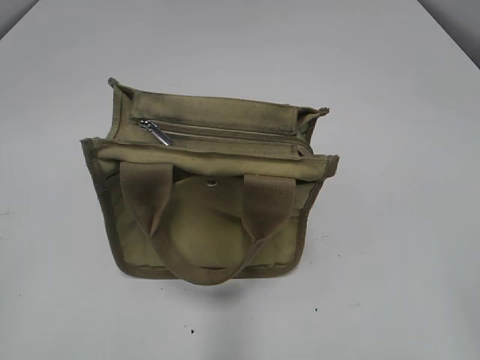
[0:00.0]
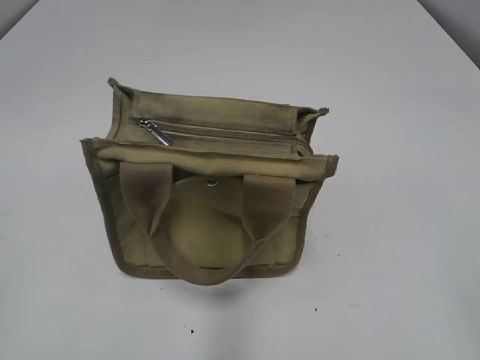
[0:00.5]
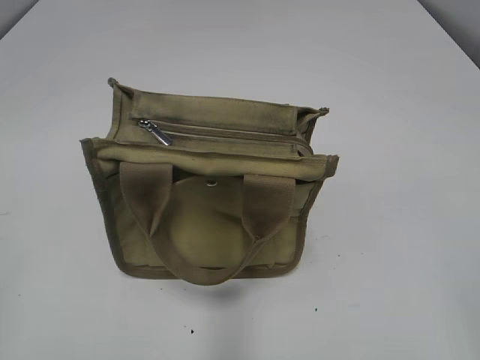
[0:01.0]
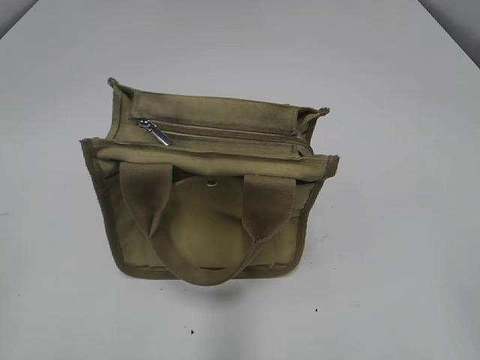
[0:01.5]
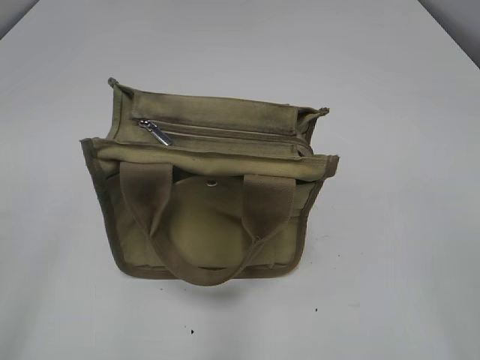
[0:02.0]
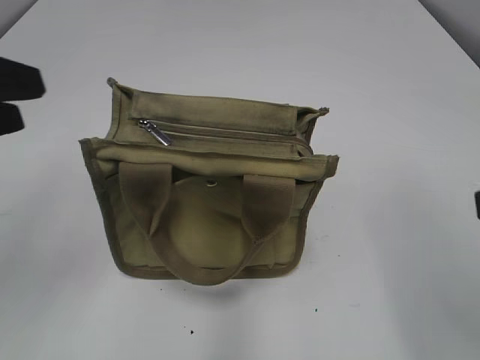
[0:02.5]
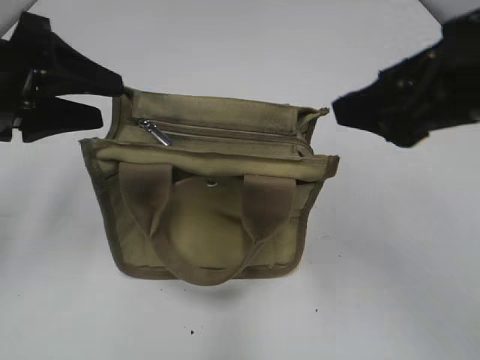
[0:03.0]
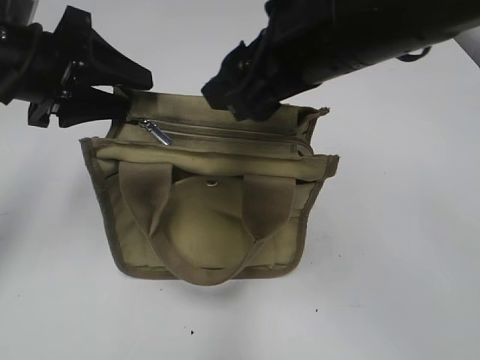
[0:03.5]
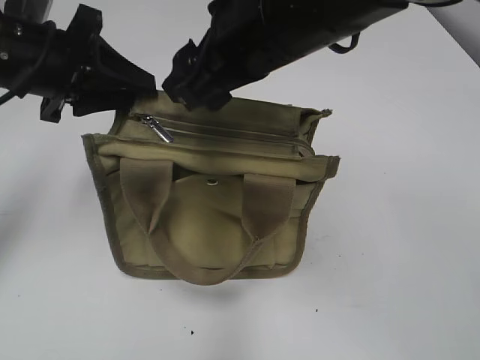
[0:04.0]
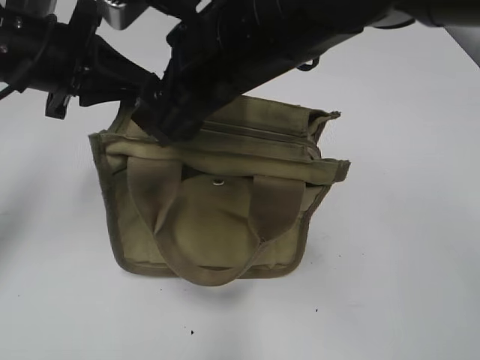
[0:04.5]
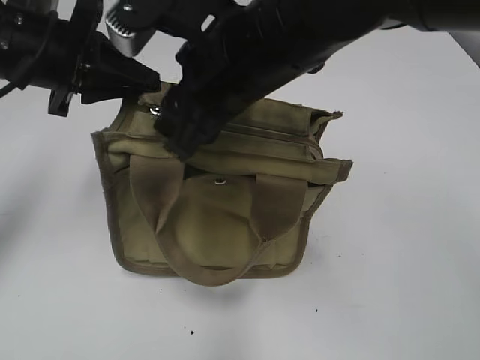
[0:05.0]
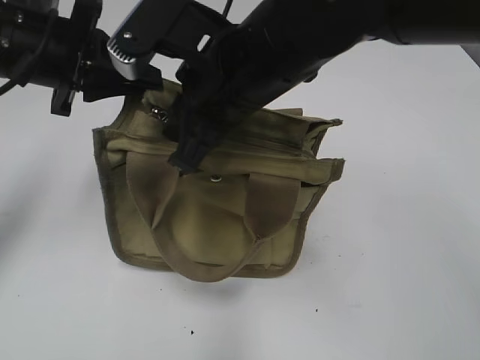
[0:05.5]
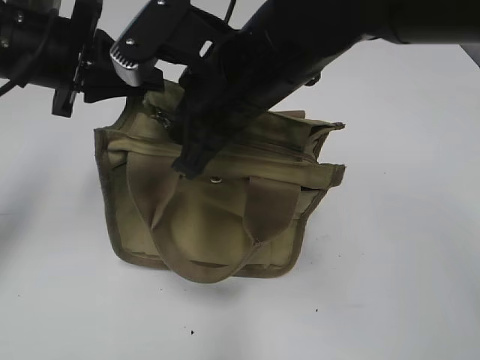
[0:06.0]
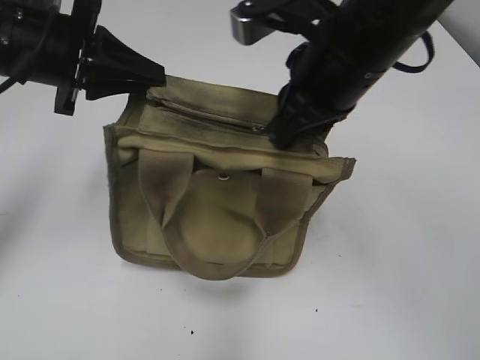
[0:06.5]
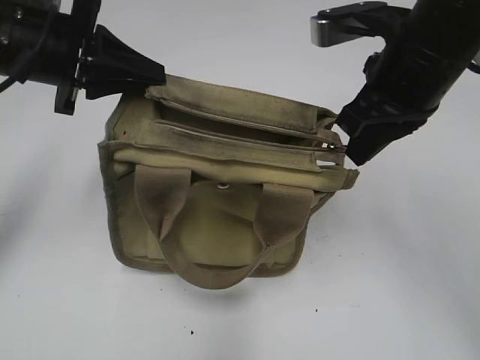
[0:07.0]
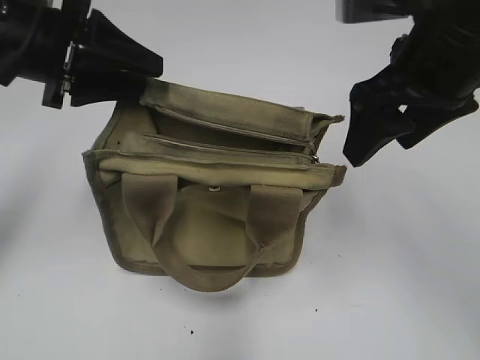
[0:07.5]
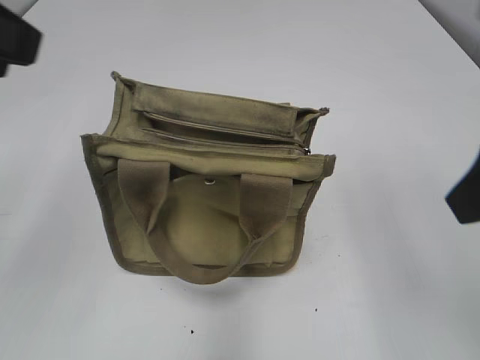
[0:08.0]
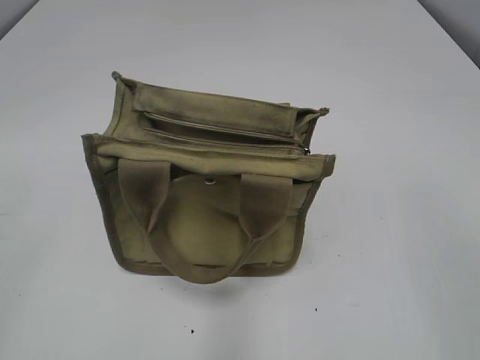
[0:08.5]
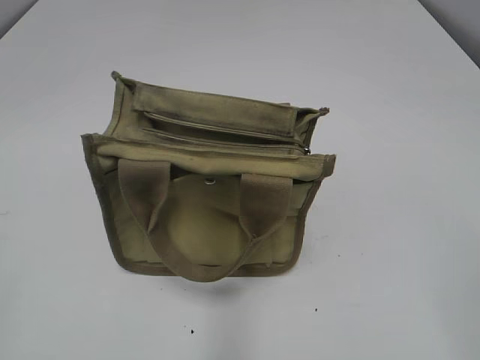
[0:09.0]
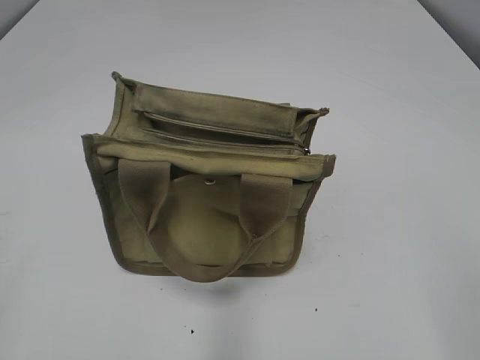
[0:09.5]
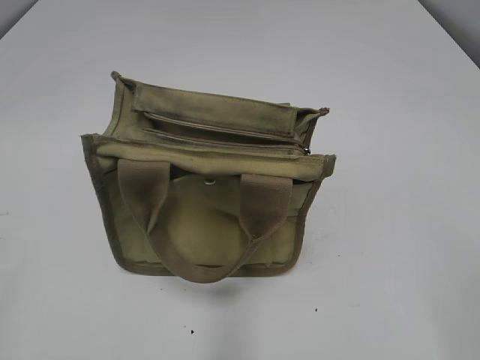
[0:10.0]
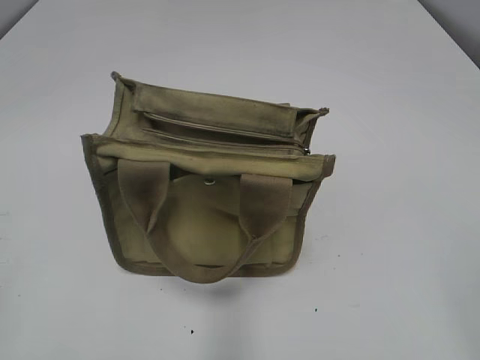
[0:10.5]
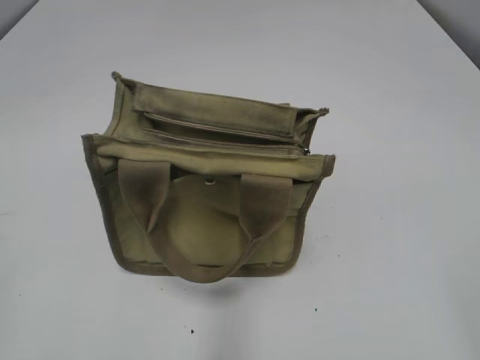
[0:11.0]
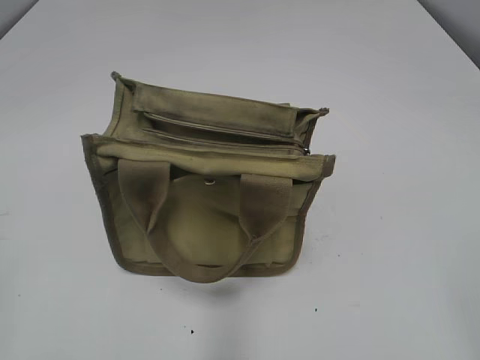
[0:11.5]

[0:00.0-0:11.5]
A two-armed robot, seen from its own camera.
Step, 0:00.0 to 0:07.0: Zip up the bag with your right hand.
0:02.0 to 0:04.0: The left gripper travels forward by approximately 30 cm, and closes. Meanwhile the right gripper is displaced forward and to the left by about 35 cm.
0:04.0 to 0:06.0: The left gripper closes its fingers. The right gripper moves about 5 cm, and closes up.
0:06.0 to 0:07.5: The right gripper goes about 15 cm to the right, and opens.
0:07.5 to 0:09.5: The right gripper travels backward and to the right by some 30 cm. The left gripper heads backward and to the left, covering approximately 35 cm, and opens its fingers.

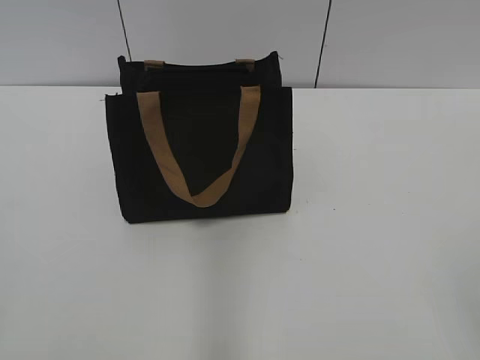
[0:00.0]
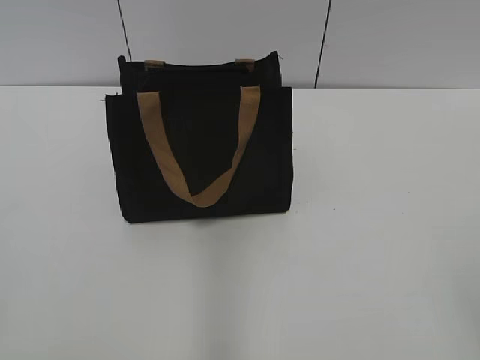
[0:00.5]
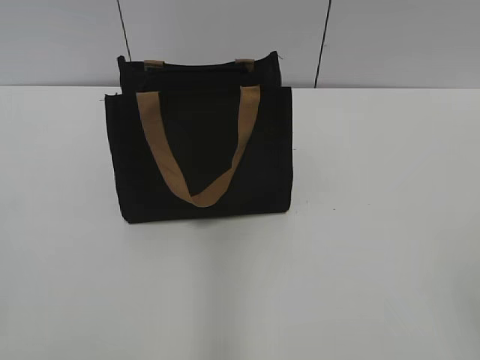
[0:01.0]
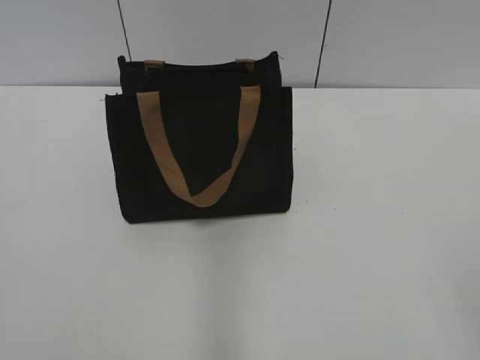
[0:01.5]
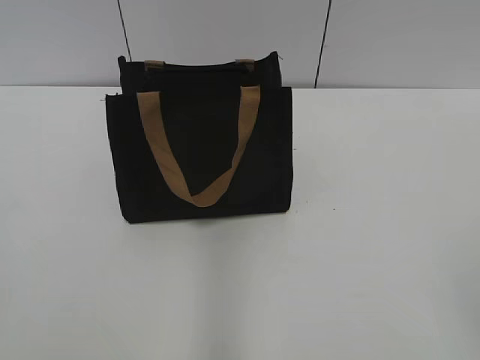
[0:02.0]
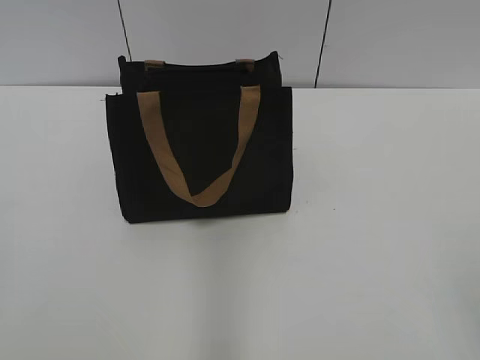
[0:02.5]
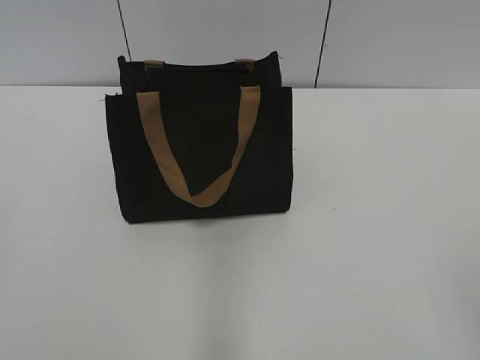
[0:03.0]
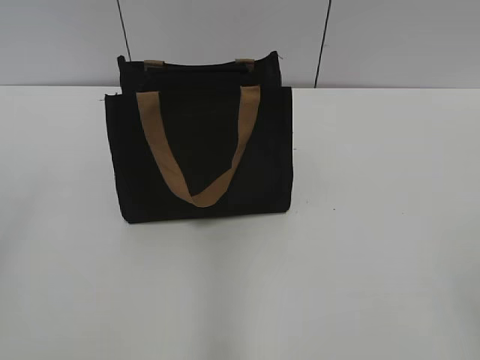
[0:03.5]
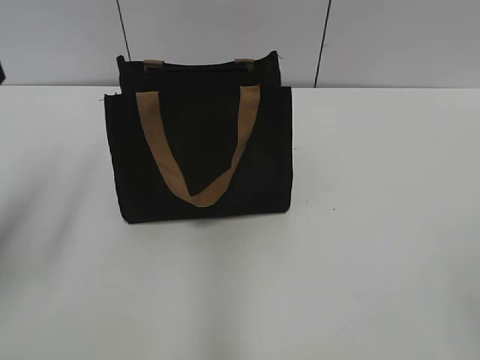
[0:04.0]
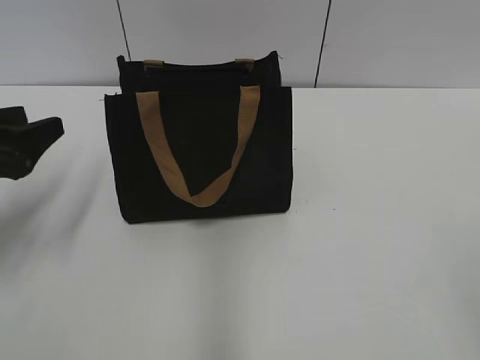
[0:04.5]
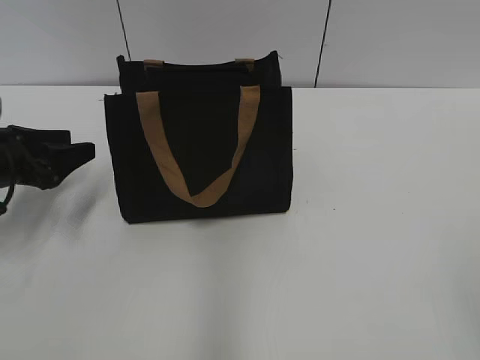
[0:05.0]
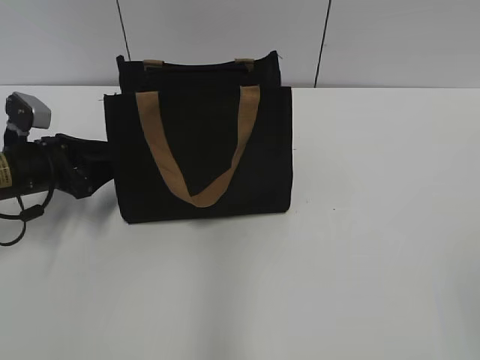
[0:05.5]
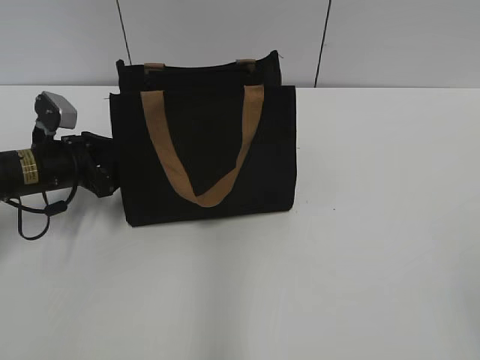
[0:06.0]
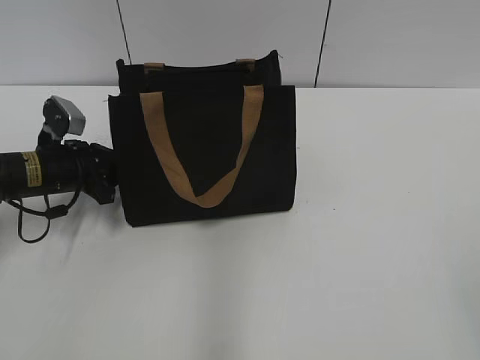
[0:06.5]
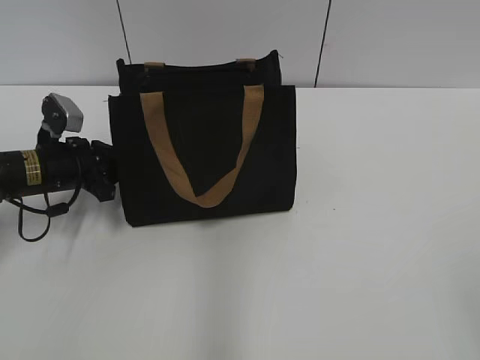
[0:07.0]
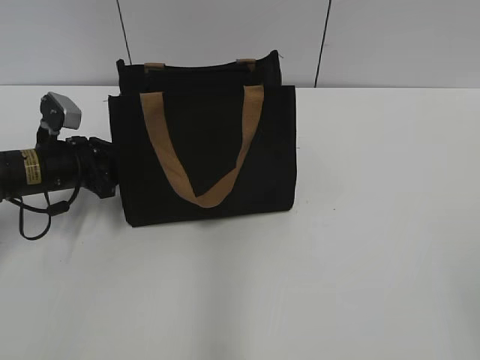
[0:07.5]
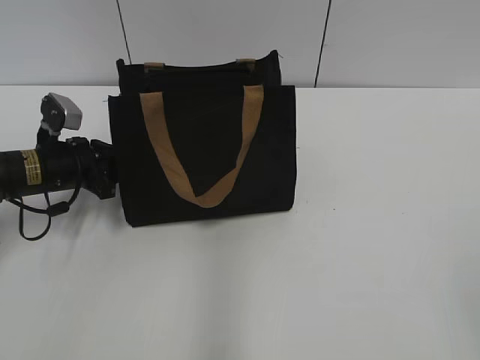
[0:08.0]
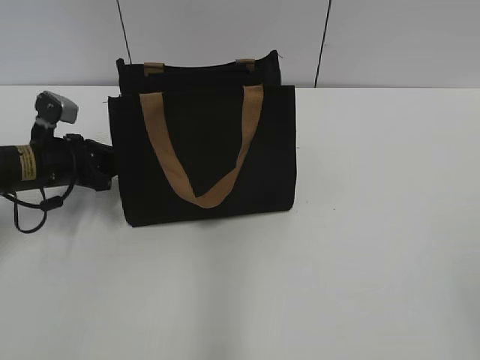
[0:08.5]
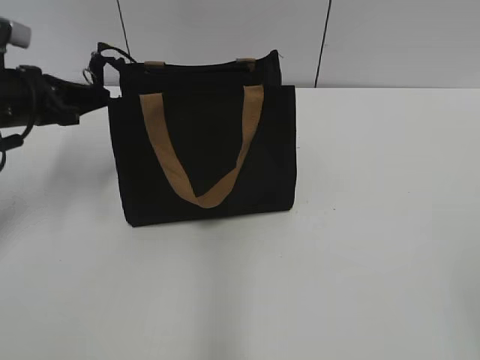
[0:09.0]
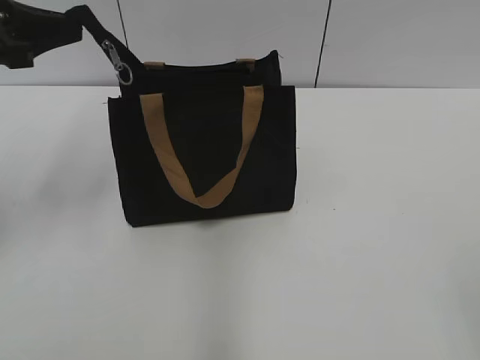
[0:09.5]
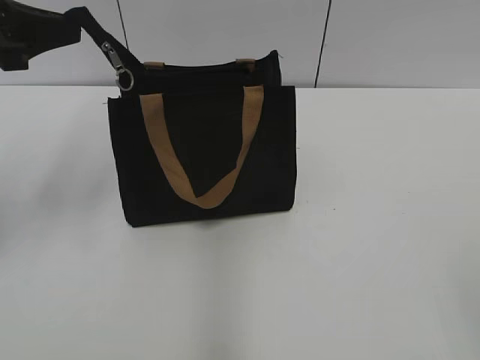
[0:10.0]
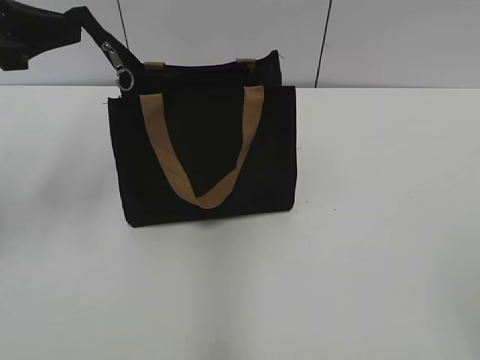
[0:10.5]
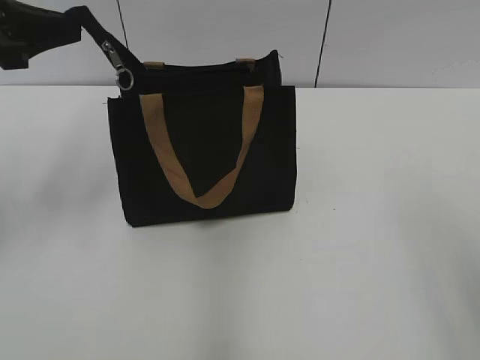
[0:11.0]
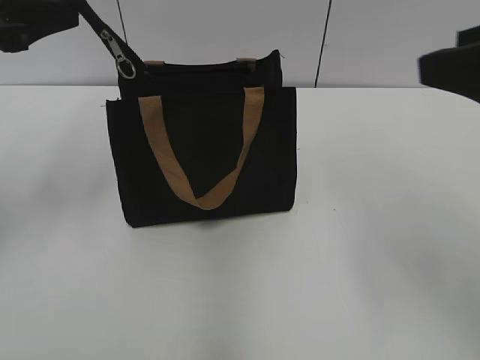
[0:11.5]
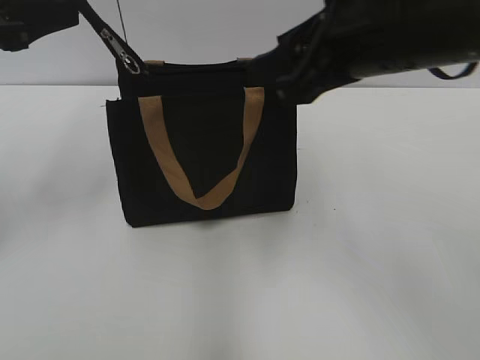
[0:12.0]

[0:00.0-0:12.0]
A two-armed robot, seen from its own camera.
0:02.0 to 0:04.0: The left gripper moves forward, roughly 20 cm, and opens.
0:04.0 to 0:06.0: The left gripper is displaced downward and forward by some 25 cm.
0:06.0 to 0:08.0: The left gripper closes its fingers.
0:08.0 to 0:10.0: The left gripper heads upward, covering roughly 20 cm.
0:10.0 to 0:12.0: The right gripper goes roughly 30 cm forward and to the left.

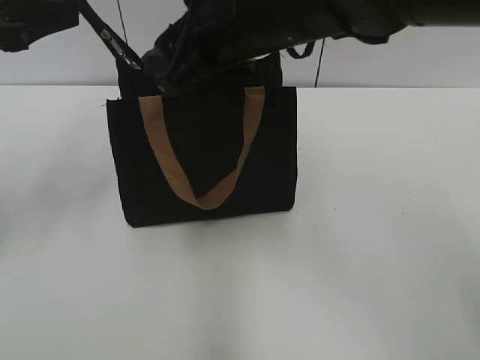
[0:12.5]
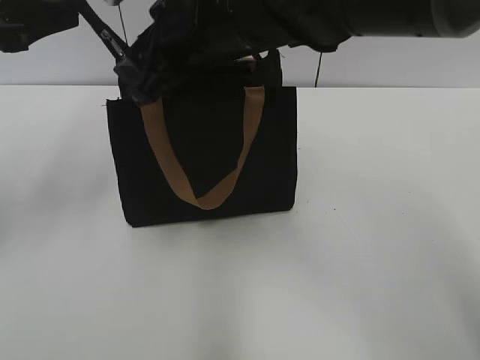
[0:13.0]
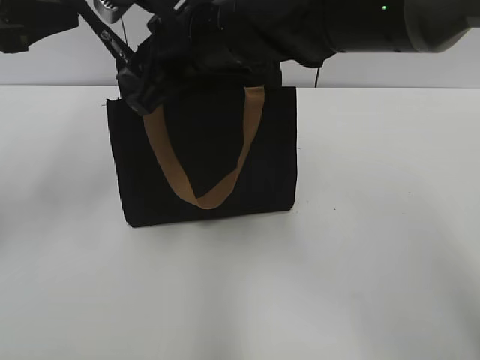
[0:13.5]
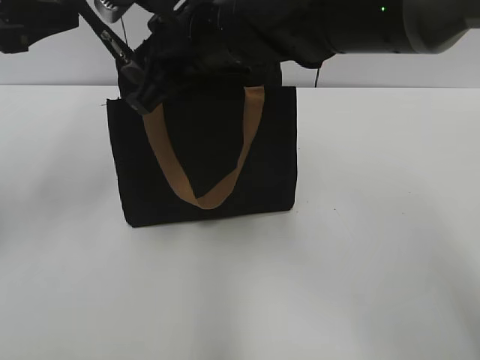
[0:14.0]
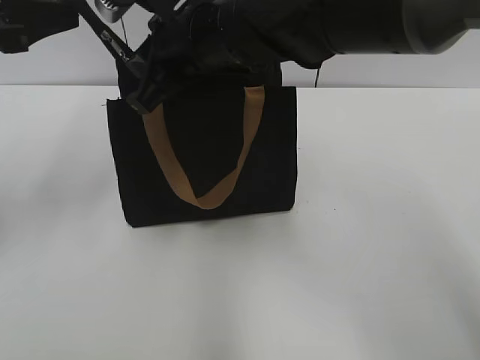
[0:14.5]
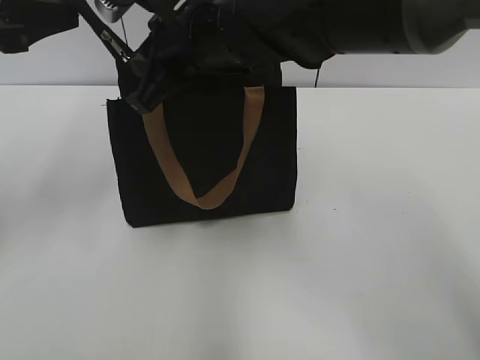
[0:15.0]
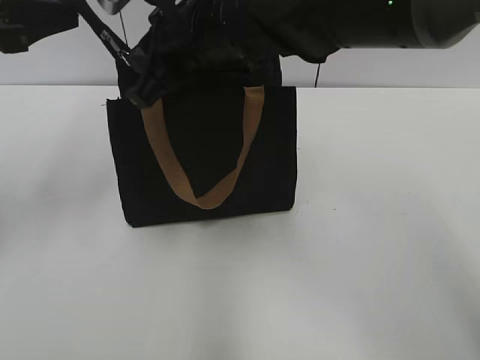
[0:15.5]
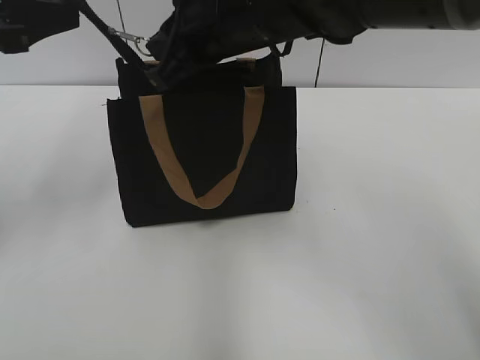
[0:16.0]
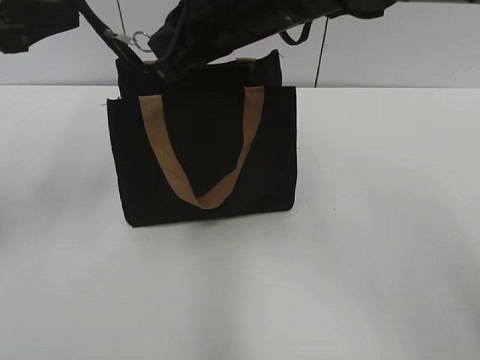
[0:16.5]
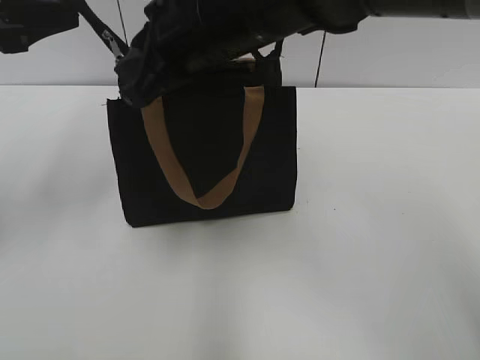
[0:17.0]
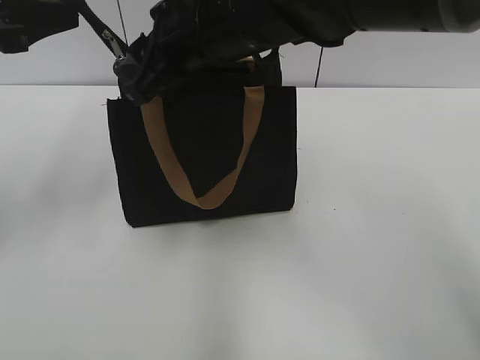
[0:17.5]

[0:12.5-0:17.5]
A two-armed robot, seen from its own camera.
0:12.5 to 0:15.0: The right gripper shifts by some 5 cm, and closes its fingers.
0:15.0 to 0:17.5: The right gripper opens.
